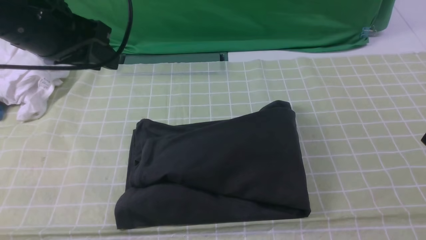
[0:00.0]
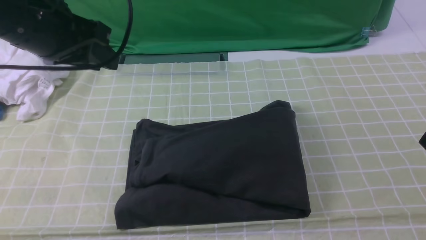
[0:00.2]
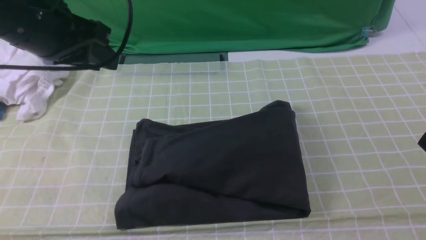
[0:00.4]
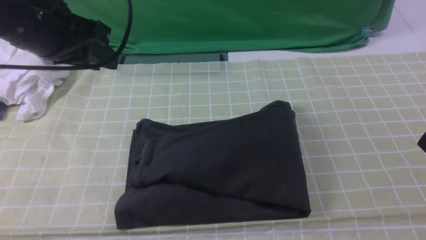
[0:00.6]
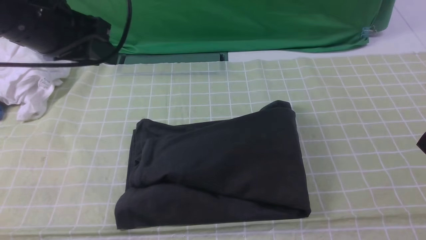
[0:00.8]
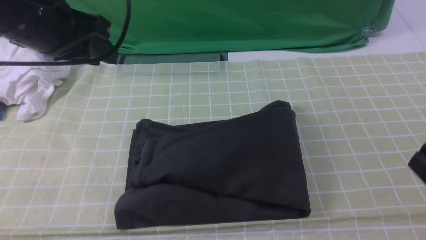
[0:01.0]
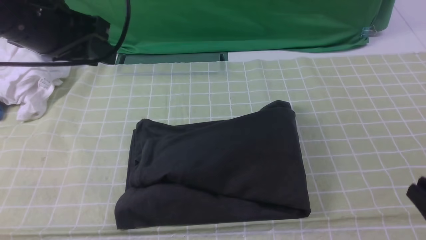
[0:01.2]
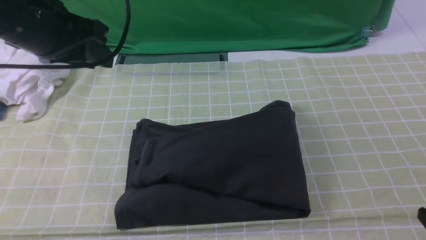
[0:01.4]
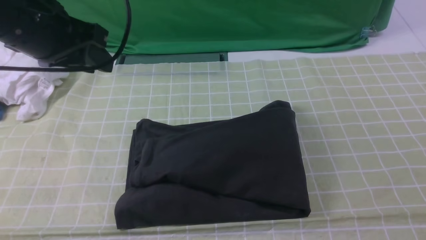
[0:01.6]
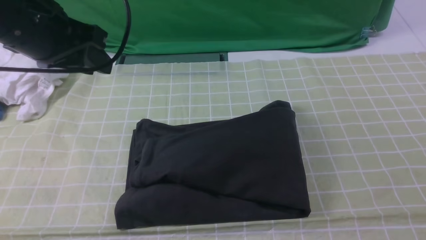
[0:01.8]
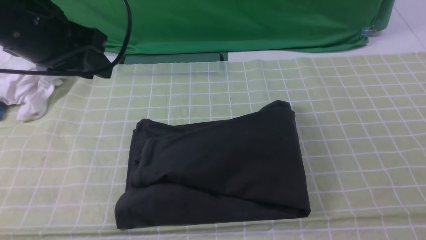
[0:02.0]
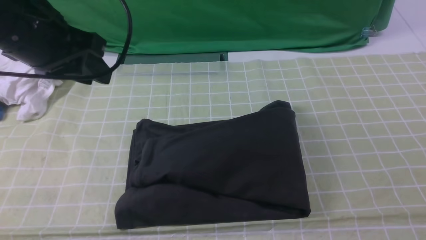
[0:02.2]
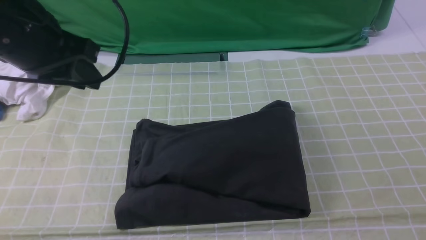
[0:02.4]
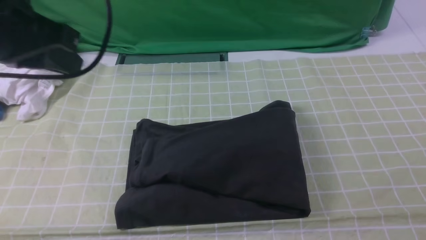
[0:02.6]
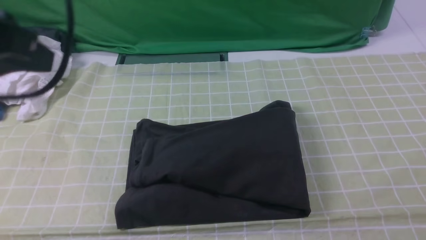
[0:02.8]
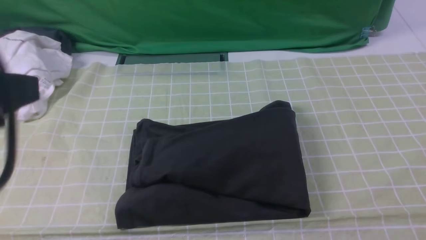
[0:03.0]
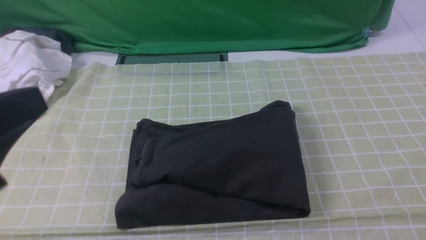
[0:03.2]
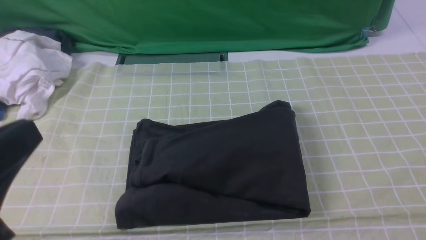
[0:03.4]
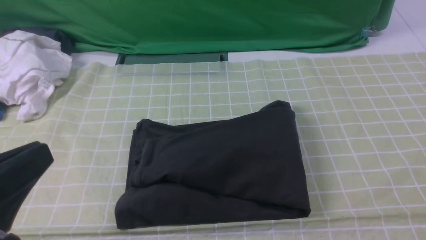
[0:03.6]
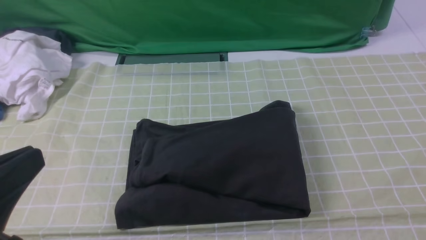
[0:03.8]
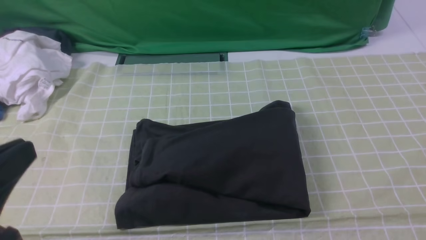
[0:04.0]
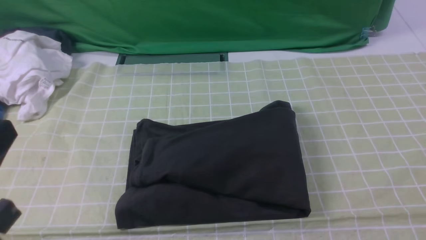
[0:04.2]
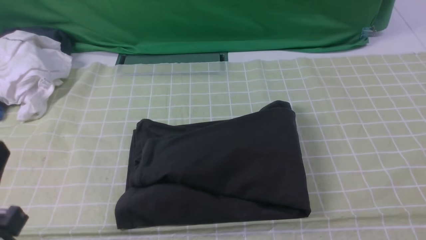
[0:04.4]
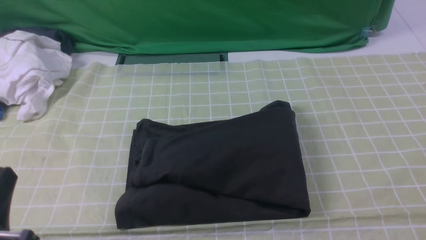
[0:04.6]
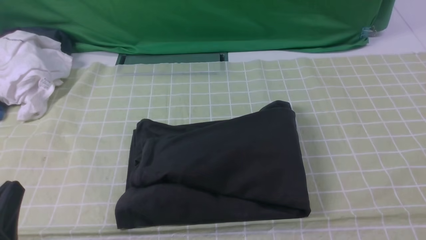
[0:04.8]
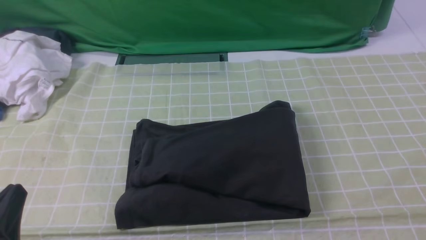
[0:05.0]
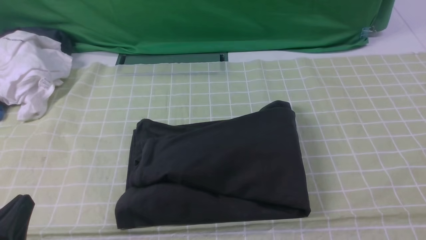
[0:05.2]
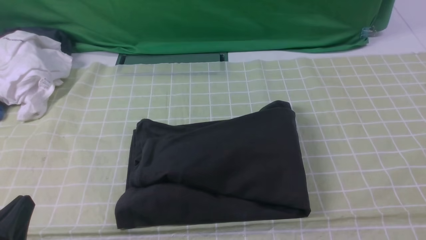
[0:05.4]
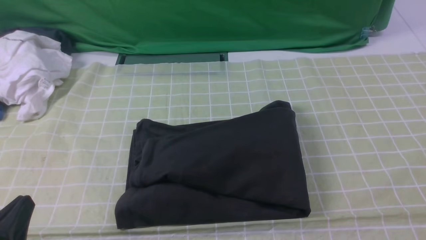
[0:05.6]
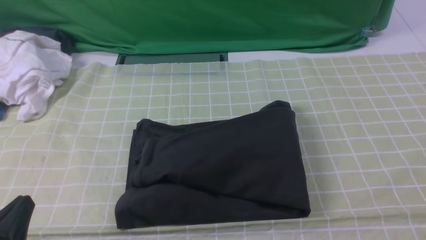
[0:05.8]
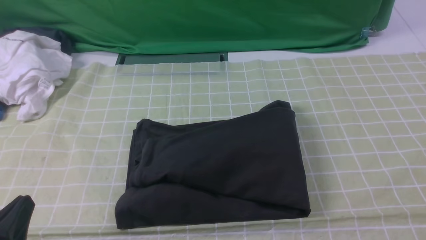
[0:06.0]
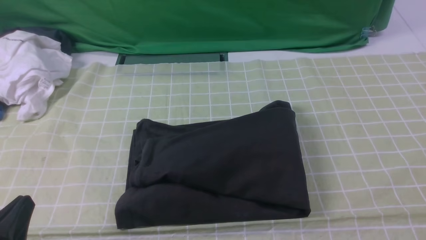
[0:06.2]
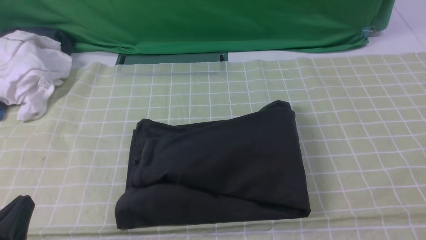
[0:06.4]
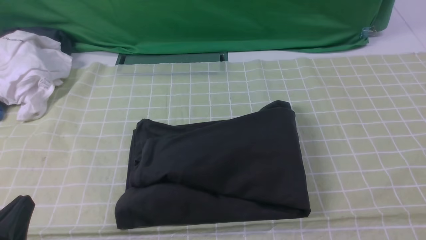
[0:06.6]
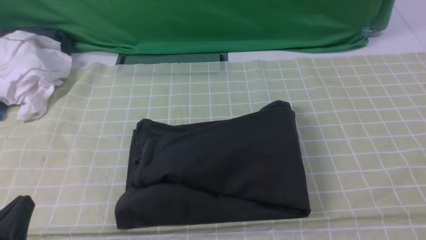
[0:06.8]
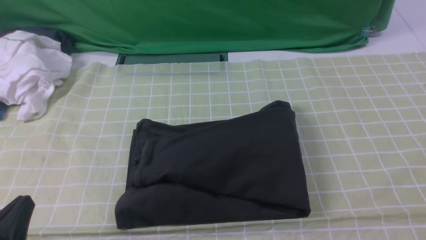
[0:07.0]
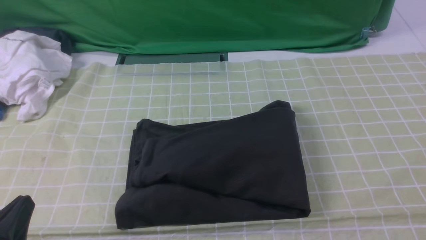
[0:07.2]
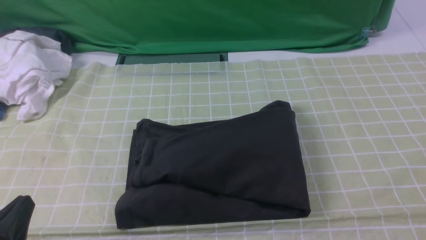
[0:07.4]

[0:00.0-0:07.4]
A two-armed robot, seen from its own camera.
0:01.4 to 0:03.0: The left gripper moves backward, approximately 20 cm, and closes up.
0:03.0 to 0:04.4: The left gripper goes some 15 cm downward.
0:04.4 to 0:06.0: The left gripper is displaced downward by roughly 10 cm.
0:06.0 to 0:07.4: Both grippers stay put.
